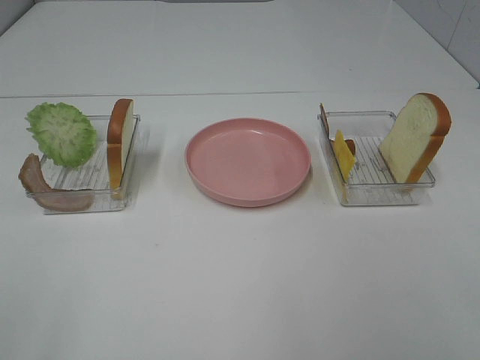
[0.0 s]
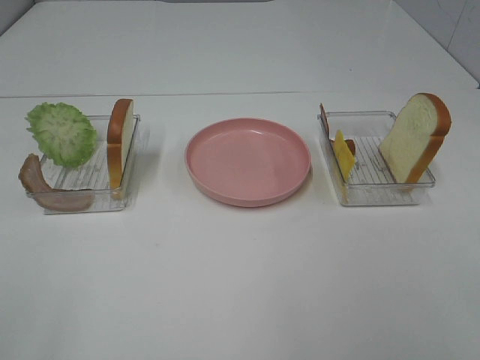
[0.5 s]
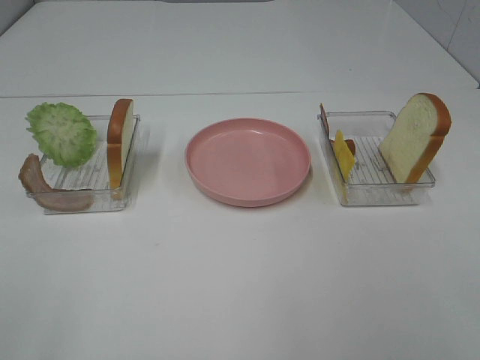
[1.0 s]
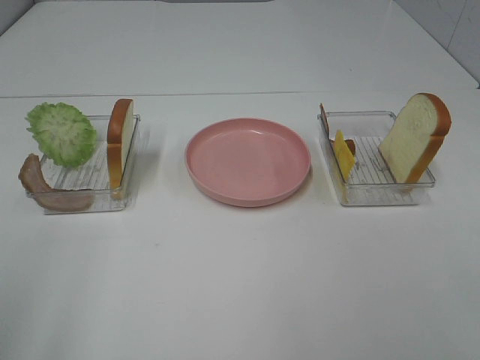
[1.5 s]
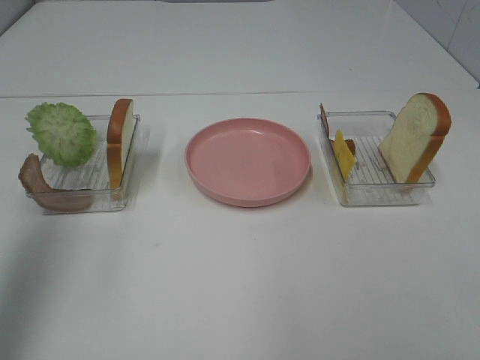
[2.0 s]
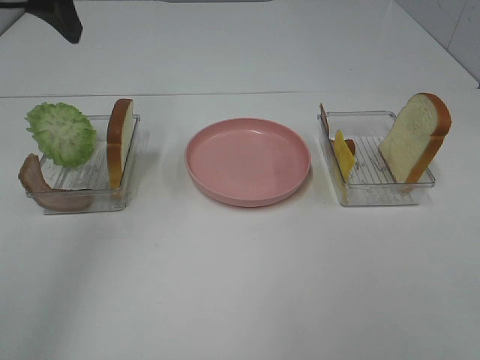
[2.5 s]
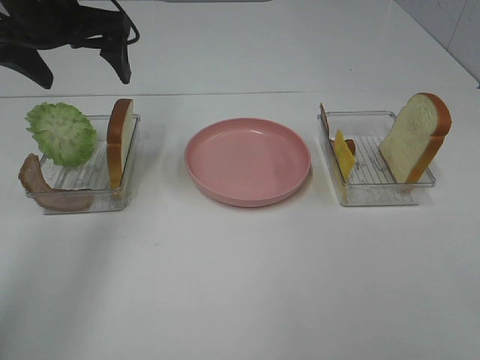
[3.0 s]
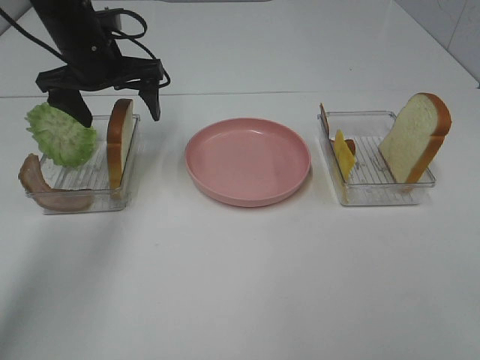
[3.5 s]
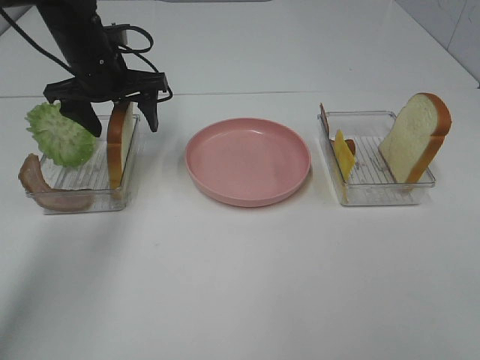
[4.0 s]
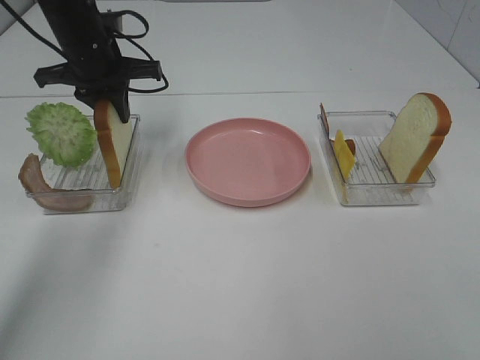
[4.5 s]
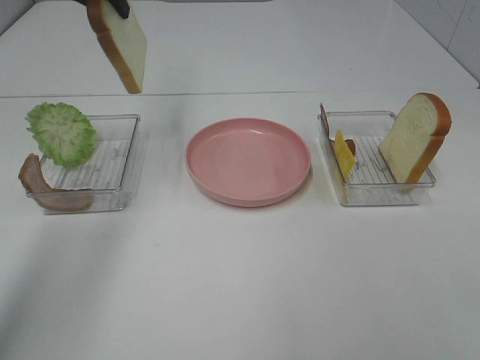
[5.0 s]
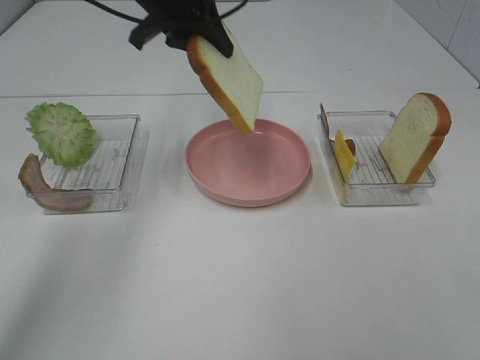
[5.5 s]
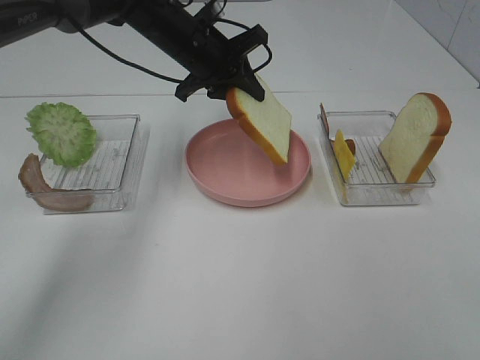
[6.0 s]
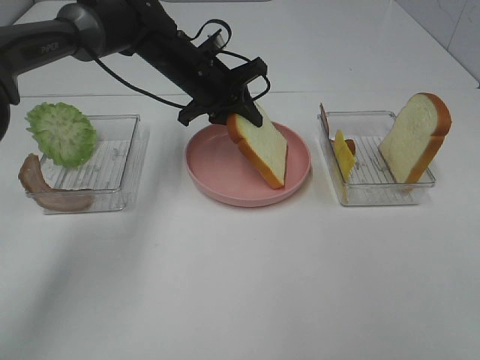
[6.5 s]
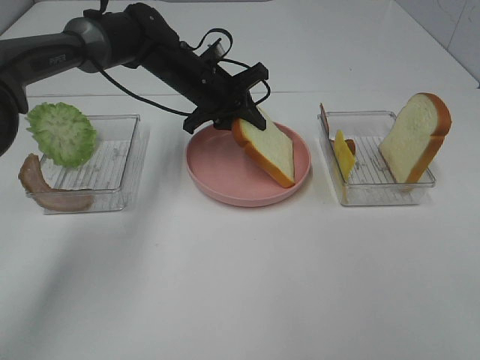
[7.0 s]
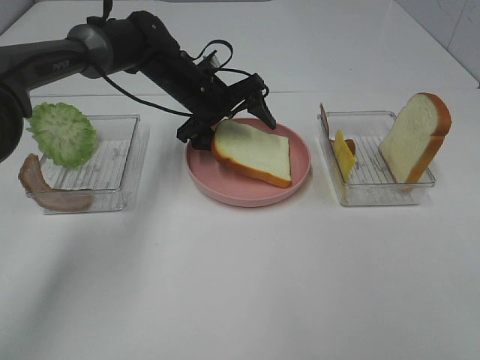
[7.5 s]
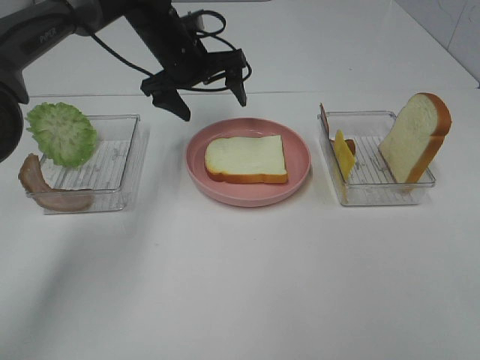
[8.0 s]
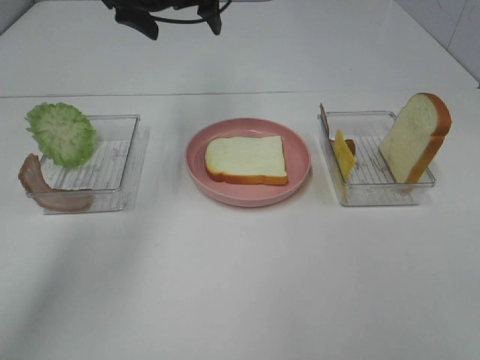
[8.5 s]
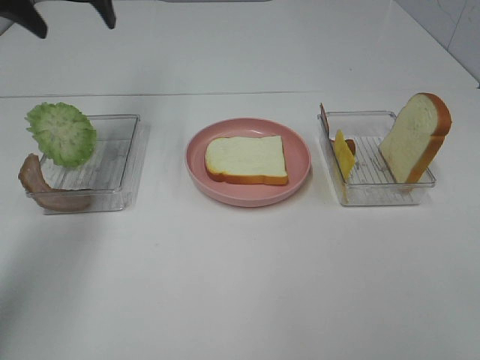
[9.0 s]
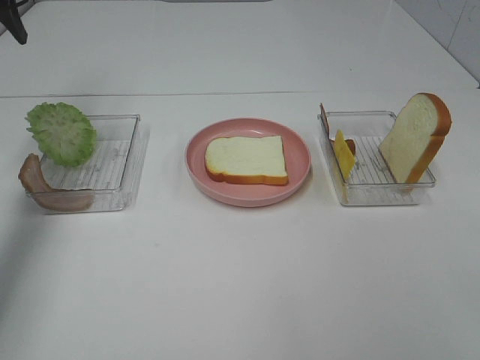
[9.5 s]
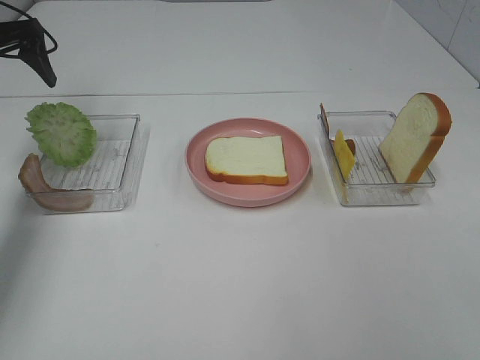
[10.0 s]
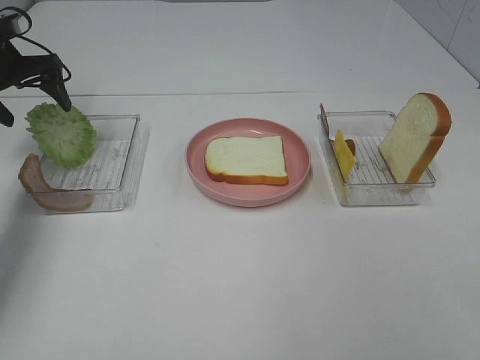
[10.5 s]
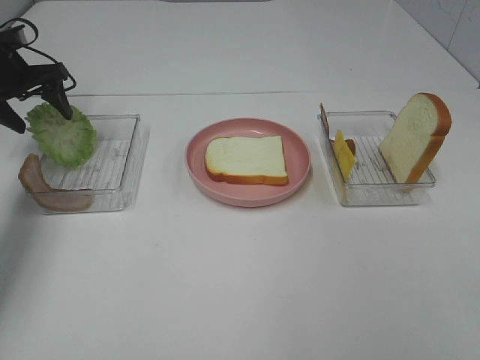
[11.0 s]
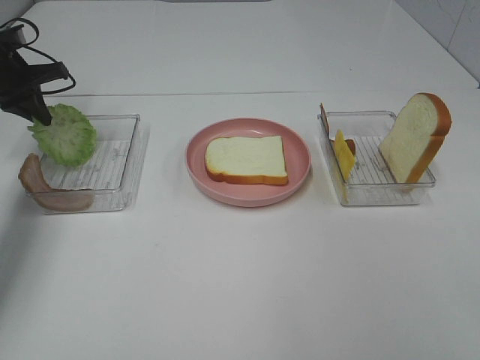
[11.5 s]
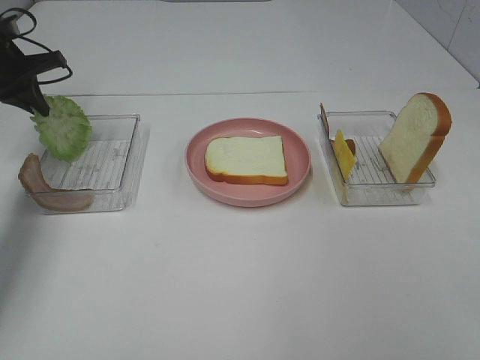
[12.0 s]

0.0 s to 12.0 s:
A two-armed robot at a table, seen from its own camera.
Task of the whole recording: Make sandwiches.
Step, 0.0 to 4.5 s: Left hand:grab the bread slice.
Step, 5.0 to 8.0 s: Left hand:place the bread slice on the plate.
Step, 8.5 to 11.5 s: Left hand:grab the lettuce slice.
0.0 to 2.0 s: The left gripper moves forward and upward, about 25 cm.
2.0 to 4.0 s: The left gripper goes roughly 35 cm forward, downward and to the right.
4.0 to 6.0 s: The left gripper heads to the right, covering some 10 cm, goes upward and returns, about 15 cm each way, and closes its fingers.
6.0 to 8.0 s: The left gripper opens its fingers.
8.0 to 10.0 s: The left gripper goes roughly 25 cm to the left.
10.0 to 12.0 s: The left gripper moves downward, about 5 cm, and closes up.

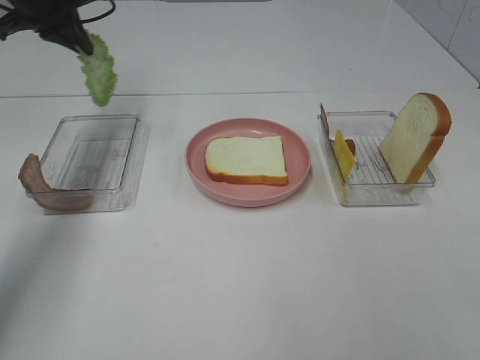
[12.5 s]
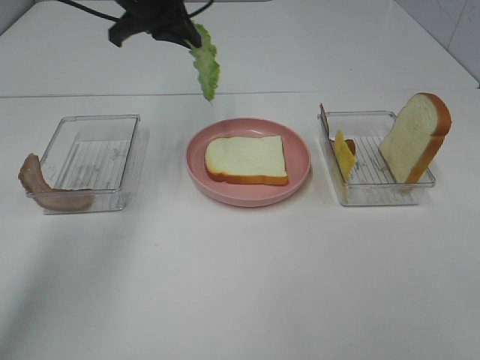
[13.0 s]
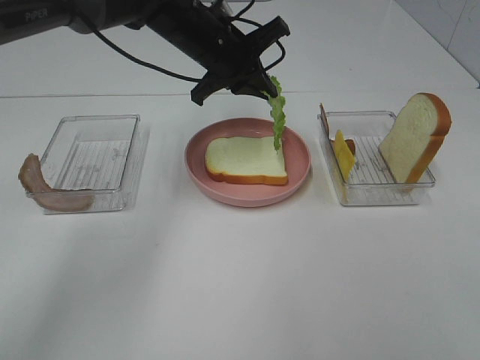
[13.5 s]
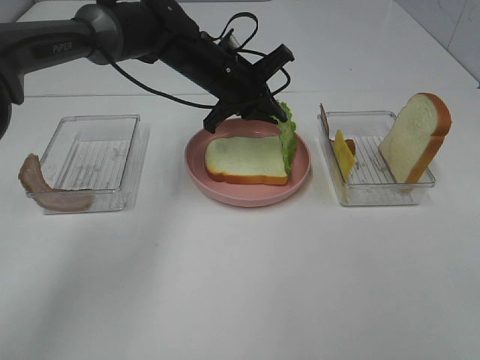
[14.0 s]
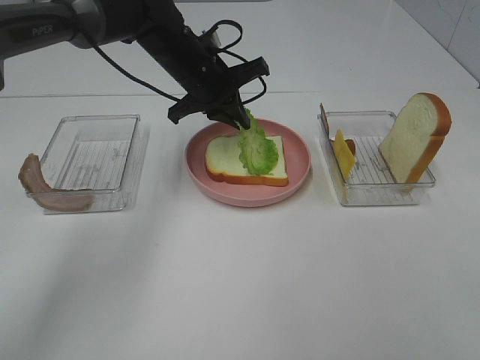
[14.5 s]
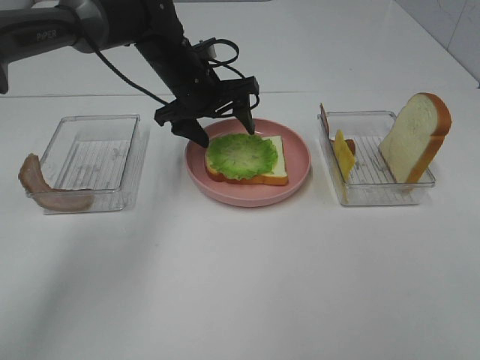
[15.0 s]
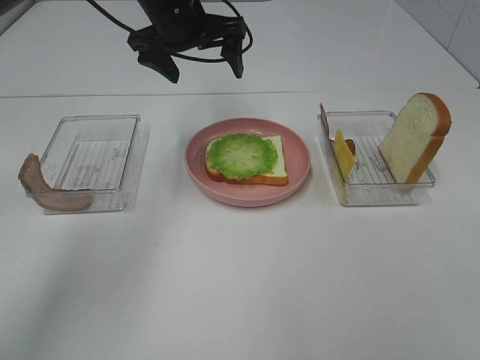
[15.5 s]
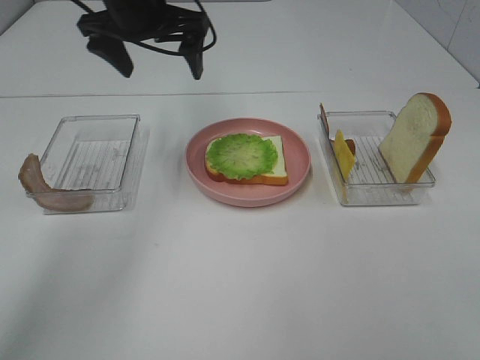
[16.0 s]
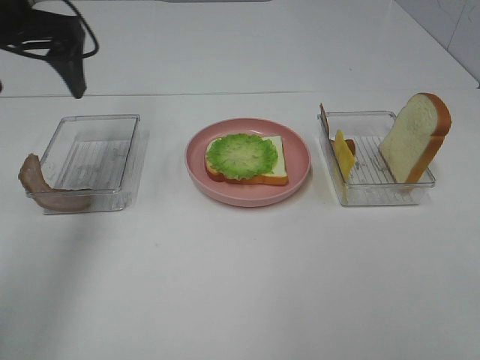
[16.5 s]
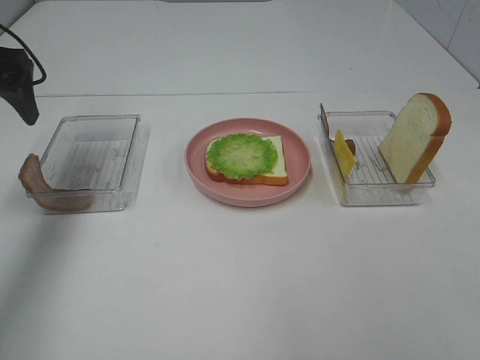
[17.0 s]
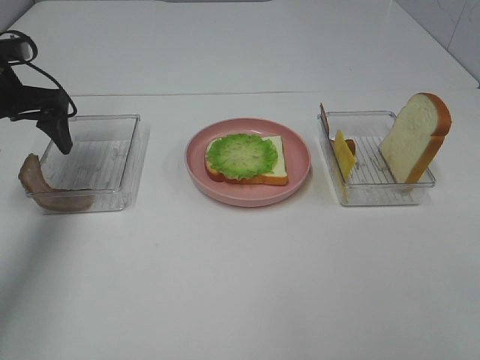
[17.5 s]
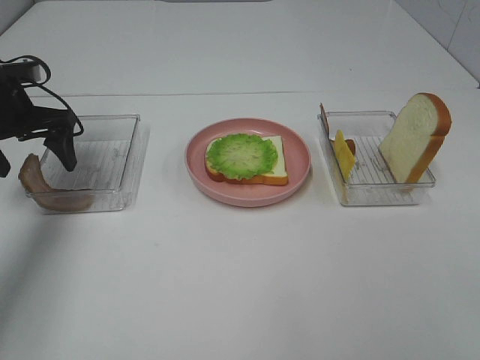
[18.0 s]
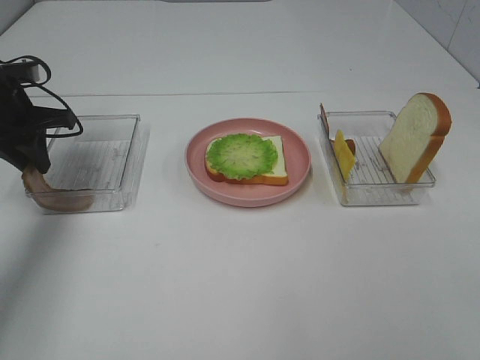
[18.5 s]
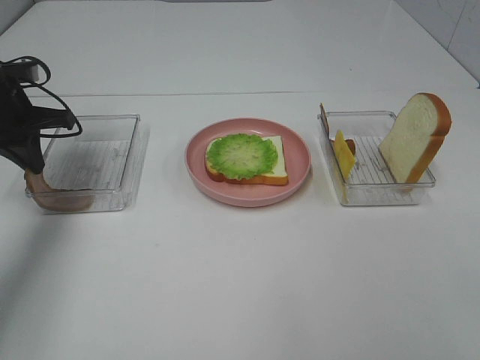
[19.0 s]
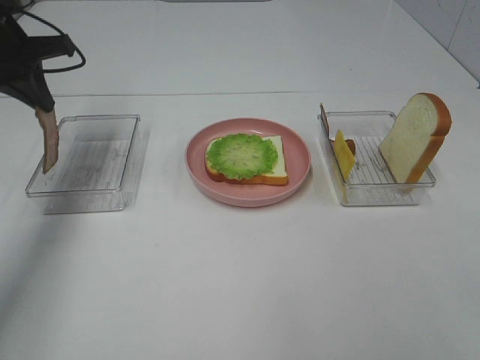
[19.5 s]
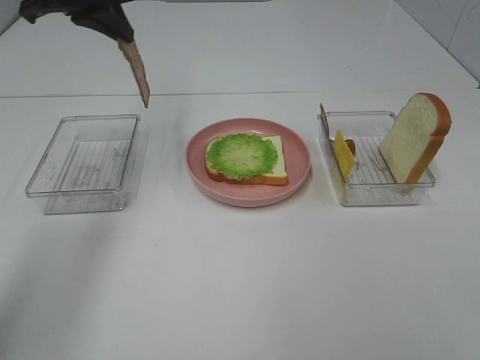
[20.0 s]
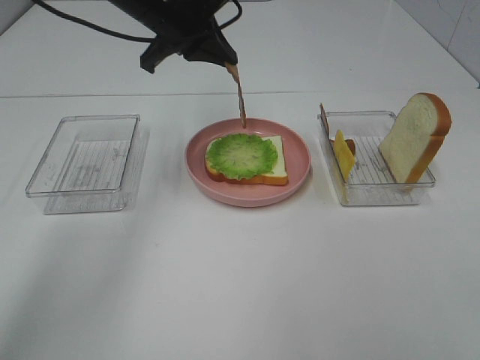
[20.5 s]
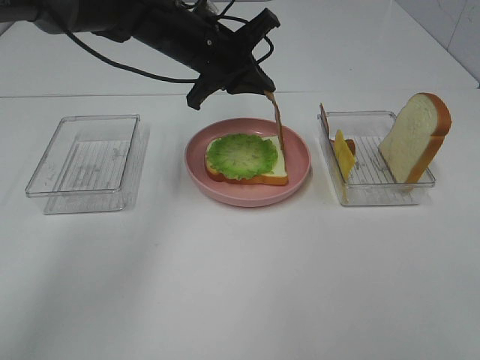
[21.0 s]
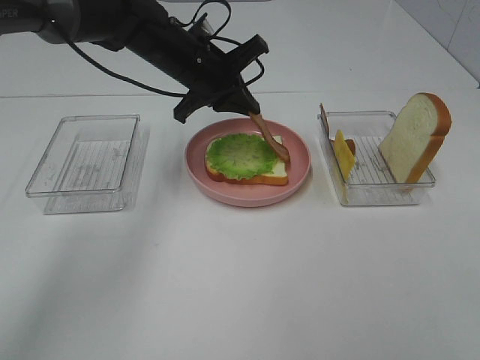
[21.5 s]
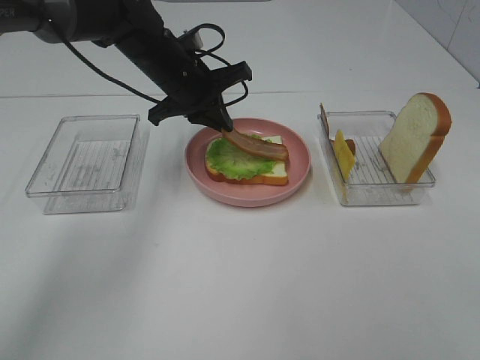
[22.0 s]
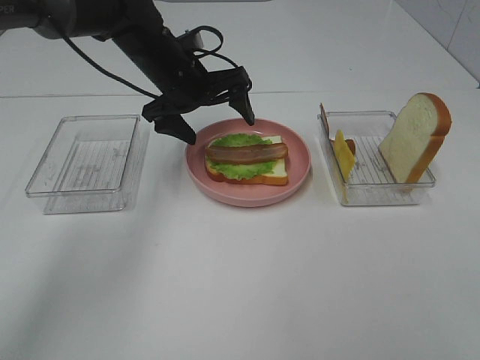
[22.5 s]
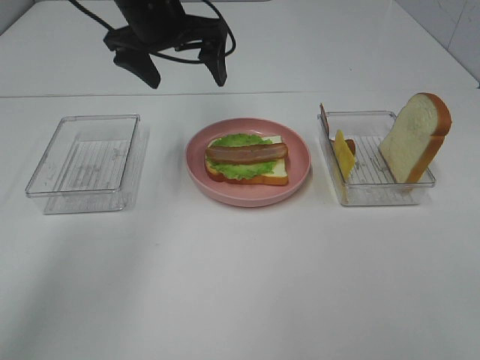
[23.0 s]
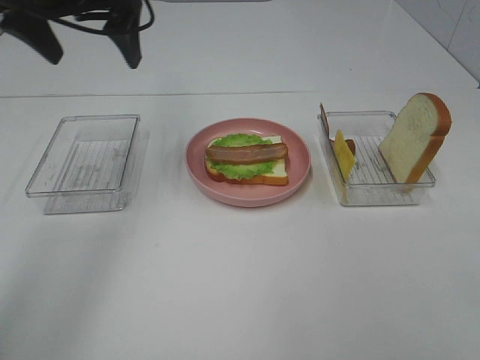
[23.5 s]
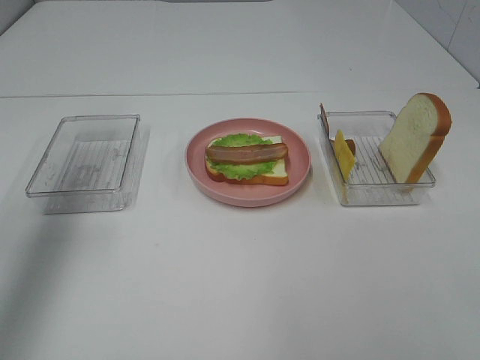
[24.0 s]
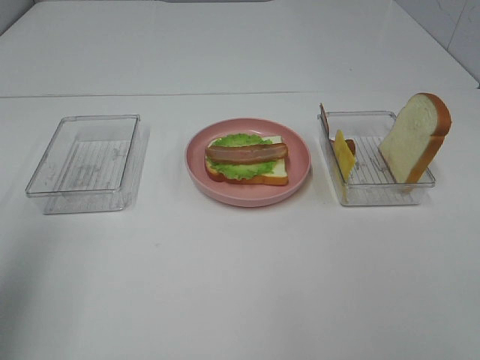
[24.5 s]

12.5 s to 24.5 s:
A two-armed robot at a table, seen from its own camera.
Task of the whole recording: Make sandwiches.
Step, 12.5 to 15.0 s: Left hand:place the lettuce slice on the bread slice.
Step, 15.5 to 19.0 s: Left hand:grab the bacon.
Step, 19.5 to 22.5 s: Left hand:place bacon on lettuce slice.
12.5 to 14.5 s: The left gripper is displaced to the right and downward by about 20 cm.
14.5 to 16.5 s: The left gripper goes approximately 25 cm to the left, upward and backward, and opens its fingers.
16.5 to 18.5 s: The left gripper heads downward, covering some 15 cm, and closes its fingers.
18.5 to 20.5 s: The left gripper moves to the right and upward, approximately 20 cm.
20.5 to 22.5 s: The left gripper travels downward by roughly 10 cm, and opens.
22.5 to 24.5 s: The left gripper shifts some 40 cm backward, to the left and upward.

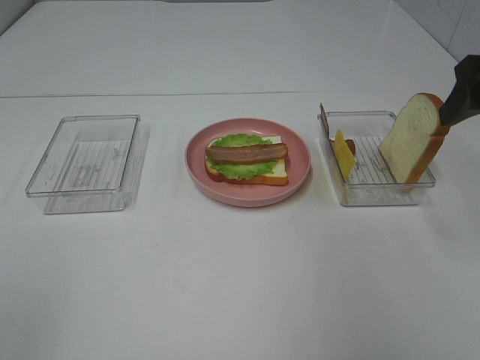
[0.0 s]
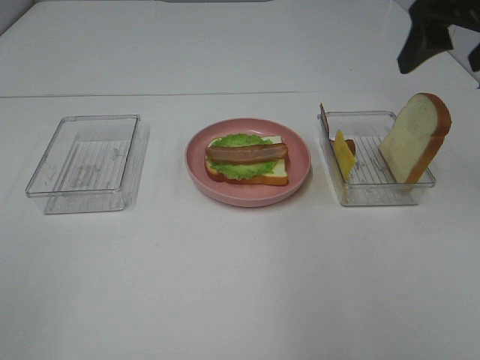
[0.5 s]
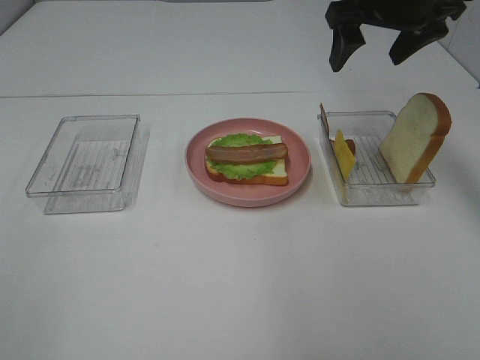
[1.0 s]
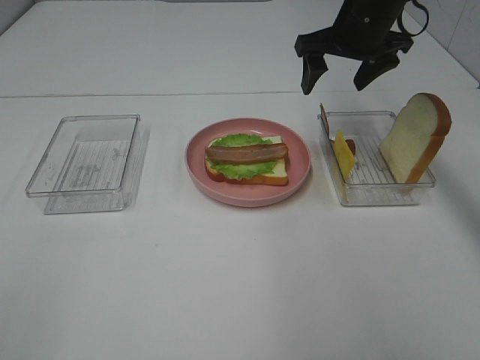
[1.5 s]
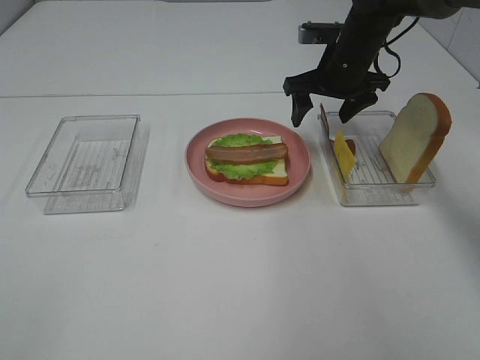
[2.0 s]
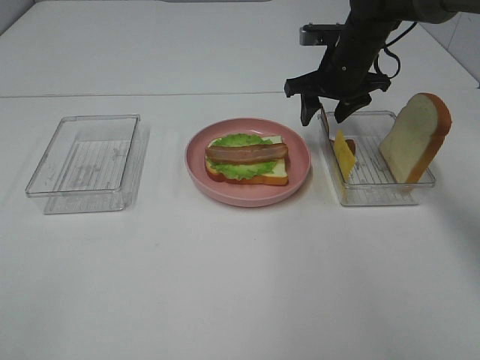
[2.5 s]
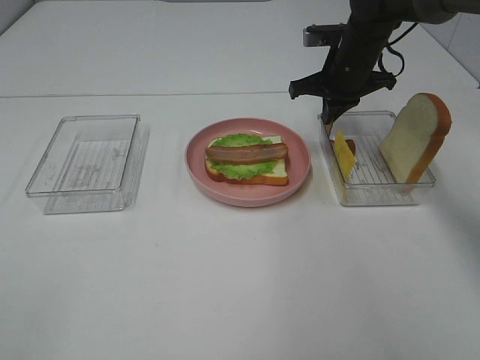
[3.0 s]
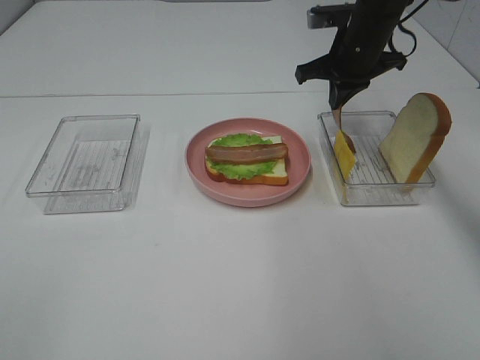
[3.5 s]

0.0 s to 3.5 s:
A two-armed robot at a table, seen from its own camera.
Task of the whole recording: Make sandwiches.
Step, 0.0 to 3.0 s: Right hand:grab the bacon.
0.0 to 2.0 s: The right gripper shifts roughly 25 cm forward, downward and to the left.
2.0 to 3.5 s: The right gripper closes.
